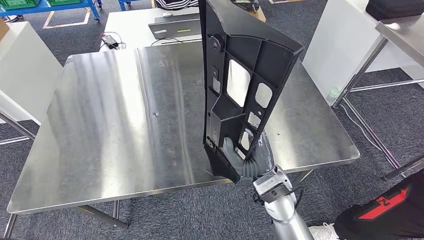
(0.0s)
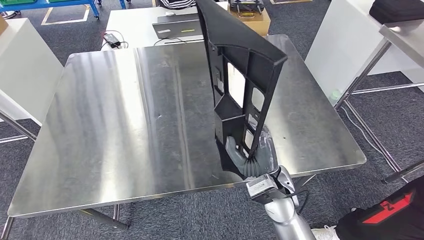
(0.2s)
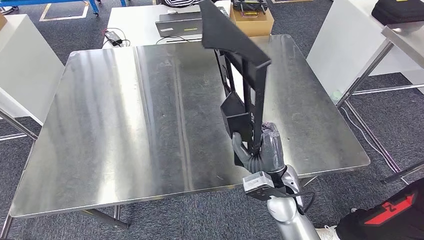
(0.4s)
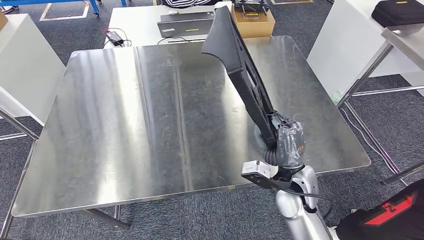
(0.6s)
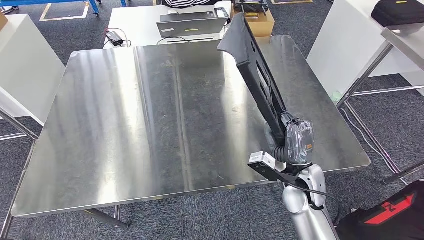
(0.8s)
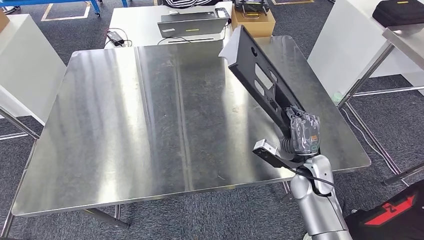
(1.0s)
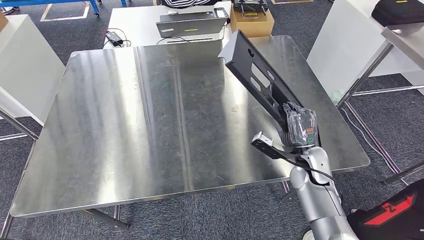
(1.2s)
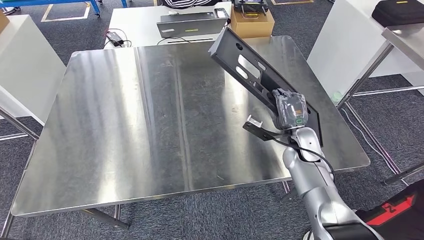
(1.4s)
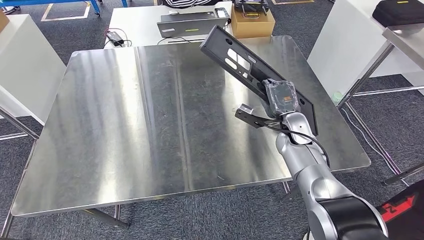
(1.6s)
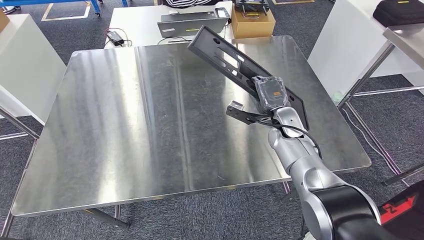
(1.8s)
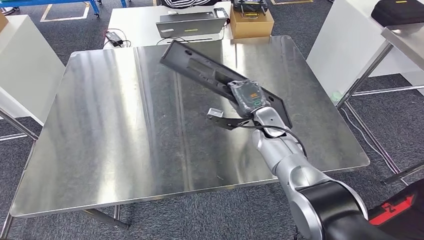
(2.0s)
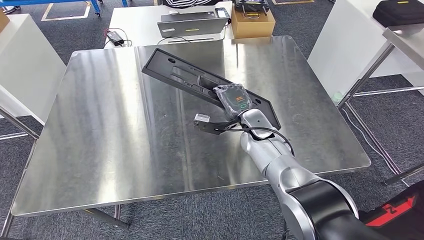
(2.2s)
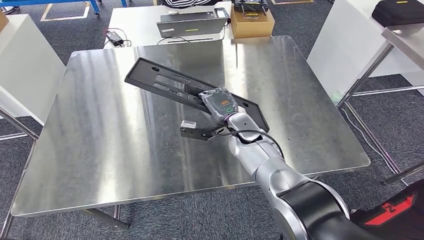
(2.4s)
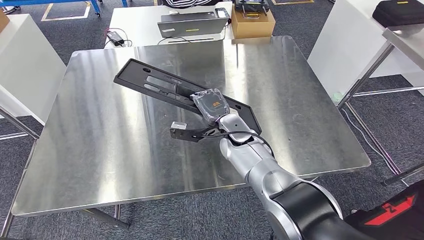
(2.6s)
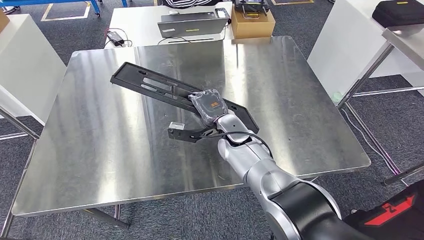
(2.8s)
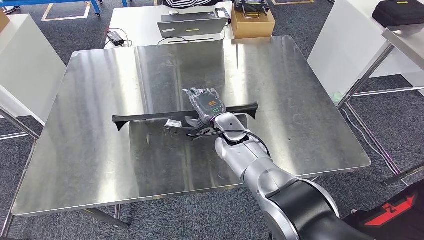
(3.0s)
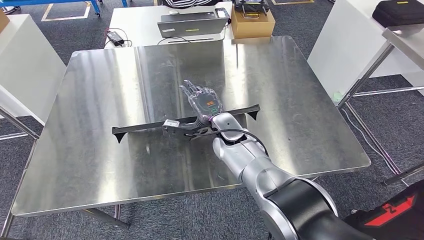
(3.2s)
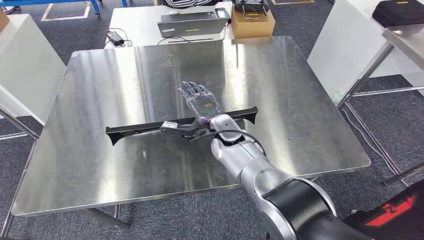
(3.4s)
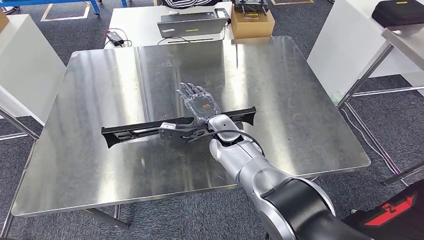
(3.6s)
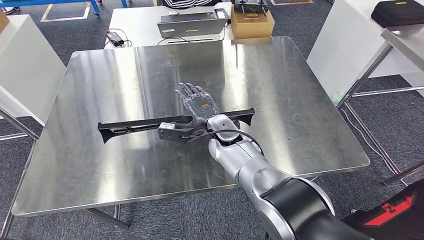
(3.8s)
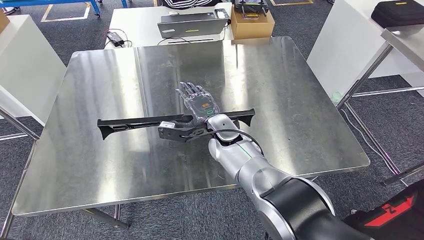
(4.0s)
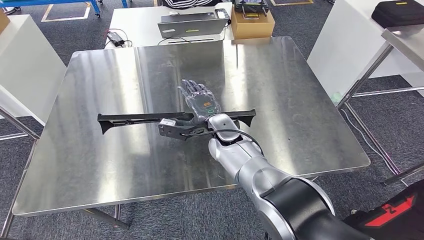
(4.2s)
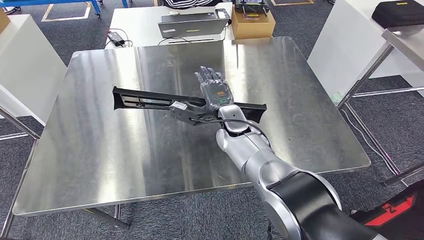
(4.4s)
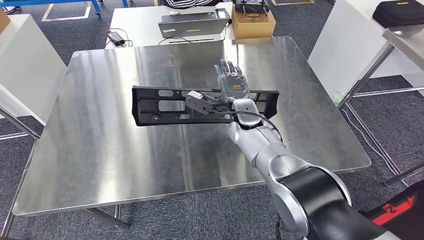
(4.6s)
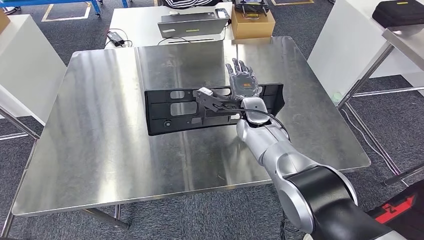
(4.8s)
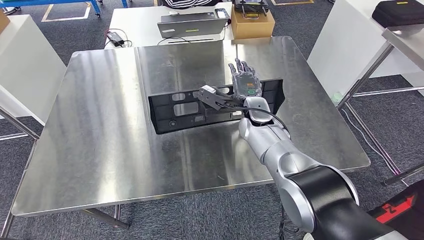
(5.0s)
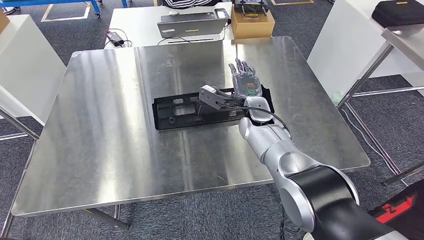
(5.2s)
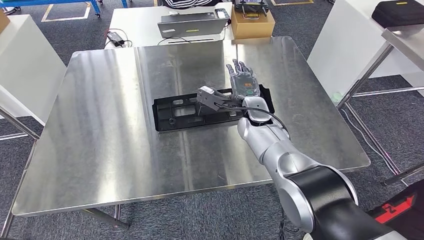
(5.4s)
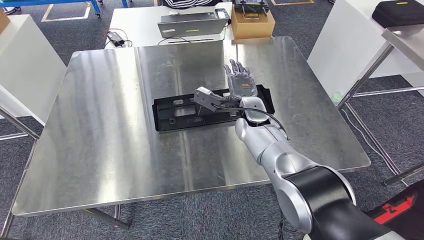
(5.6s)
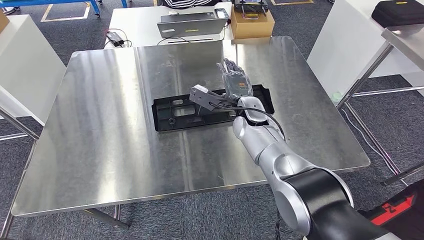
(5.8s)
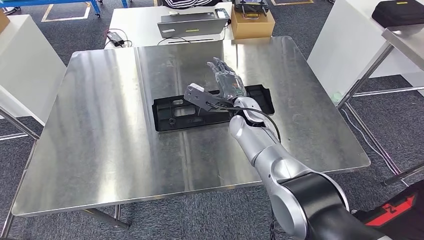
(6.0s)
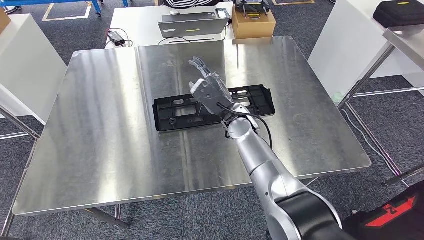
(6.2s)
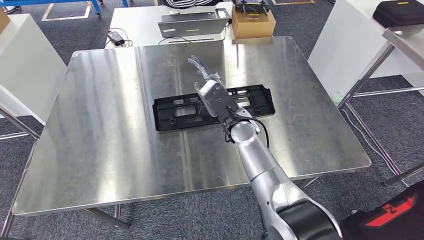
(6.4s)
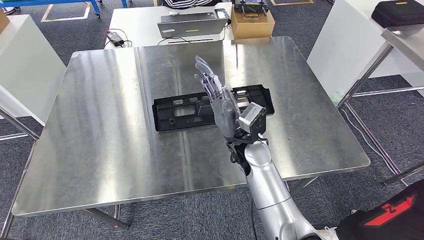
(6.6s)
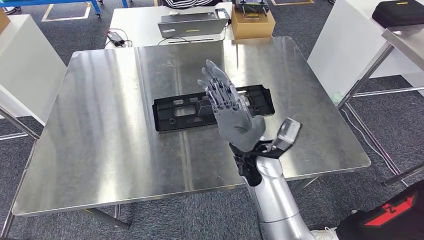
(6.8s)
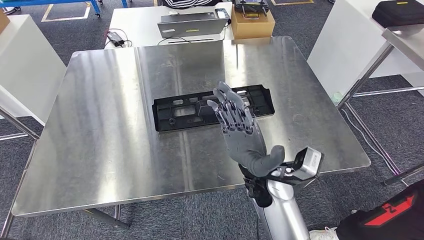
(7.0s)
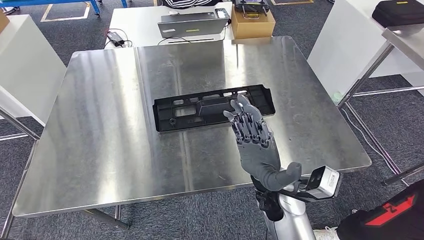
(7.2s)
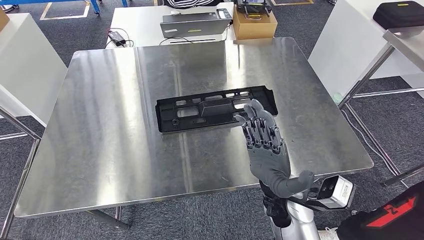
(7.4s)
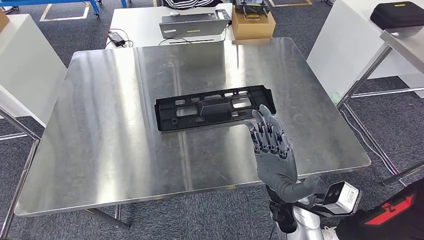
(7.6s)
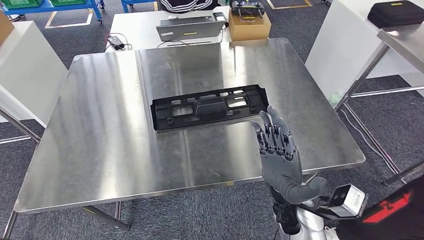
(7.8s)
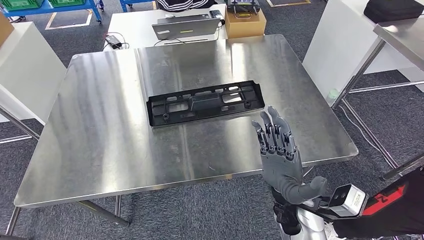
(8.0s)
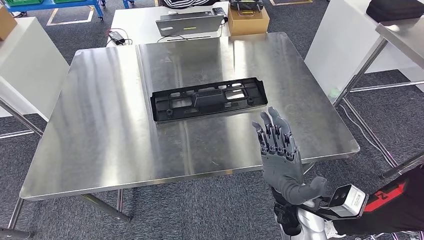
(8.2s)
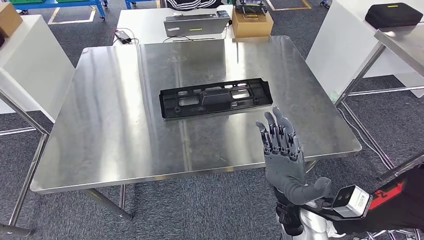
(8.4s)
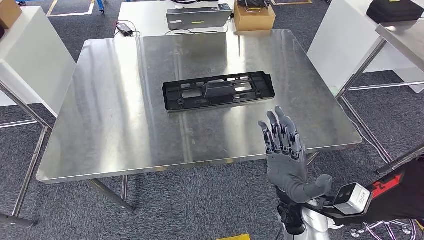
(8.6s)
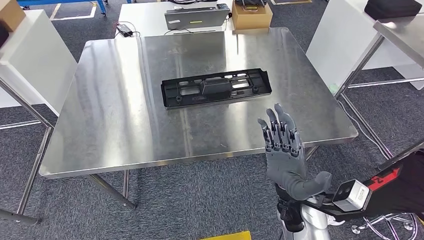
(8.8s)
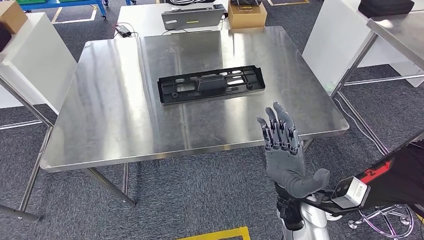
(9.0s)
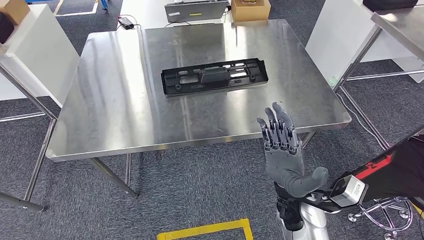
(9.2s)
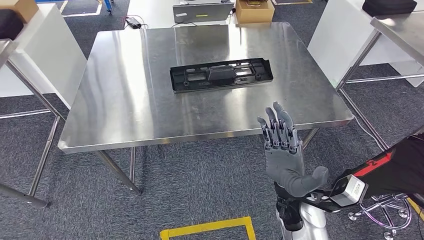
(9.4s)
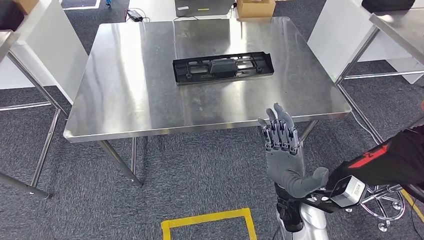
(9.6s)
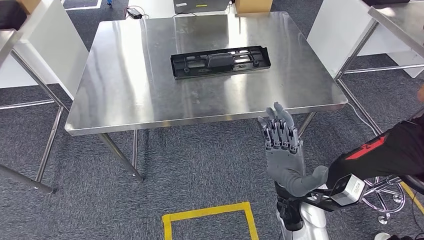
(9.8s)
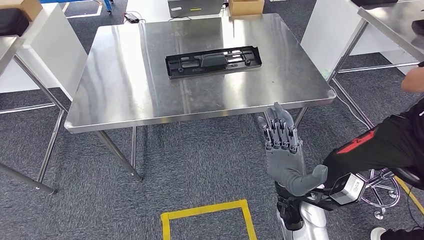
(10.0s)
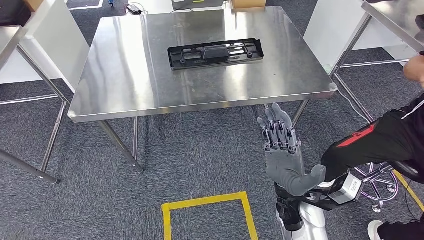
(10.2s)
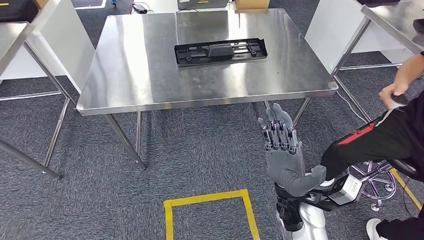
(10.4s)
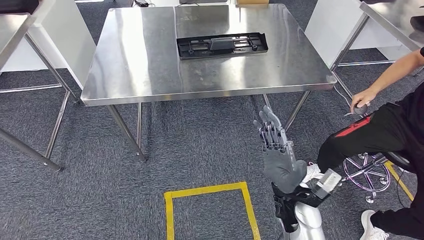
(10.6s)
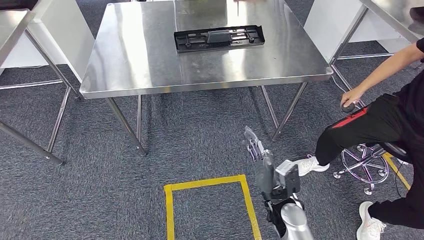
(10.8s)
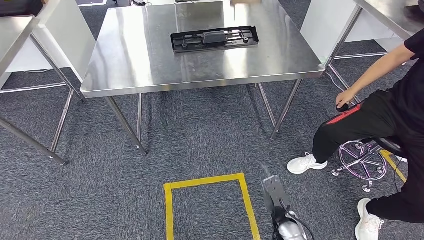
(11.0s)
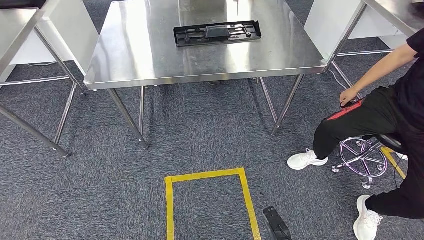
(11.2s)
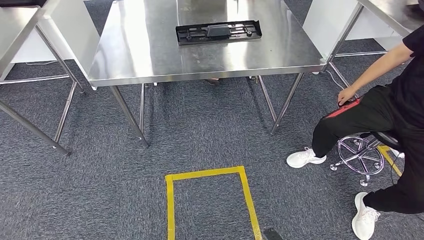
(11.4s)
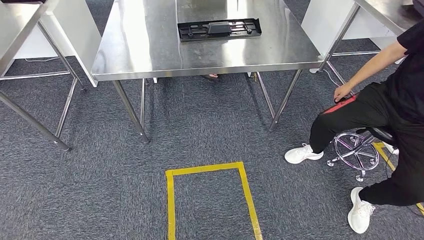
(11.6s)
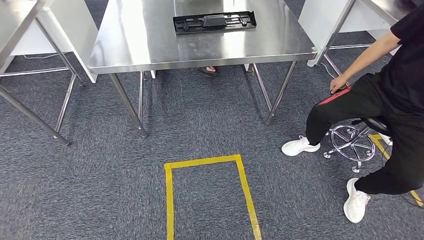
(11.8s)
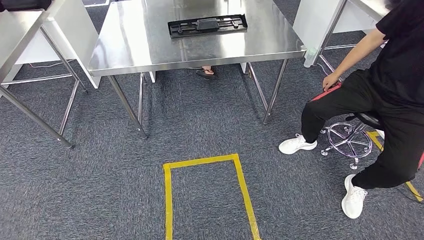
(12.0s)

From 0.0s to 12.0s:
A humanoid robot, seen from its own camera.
Step, from 0.0s to 10.2s: Insert the large material into the corresponding hole on the workbench.
From 1.6s to 3.0s: The right hand heads to the left, covering some 20 cm.
From 3.0s to 4.4s: The hands make only small movements.
From 6.0s to 7.6s: The right hand travels backward by some 20 cm.

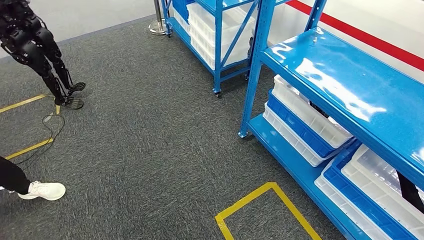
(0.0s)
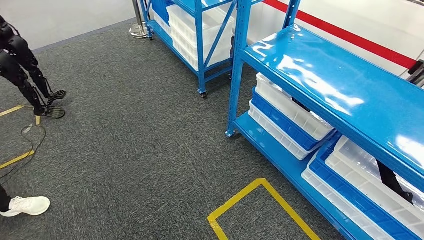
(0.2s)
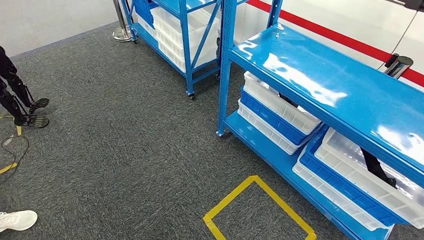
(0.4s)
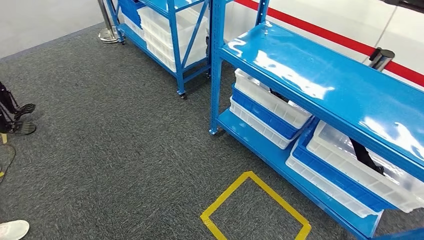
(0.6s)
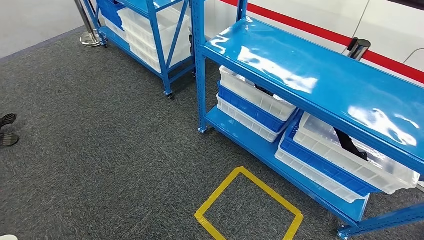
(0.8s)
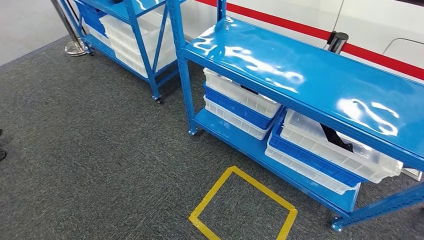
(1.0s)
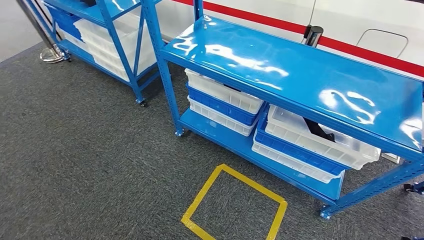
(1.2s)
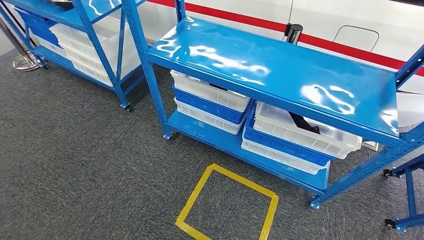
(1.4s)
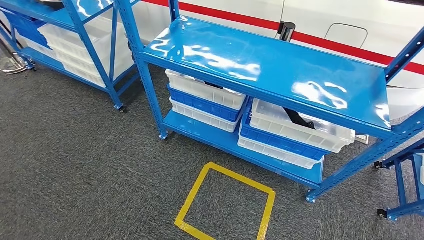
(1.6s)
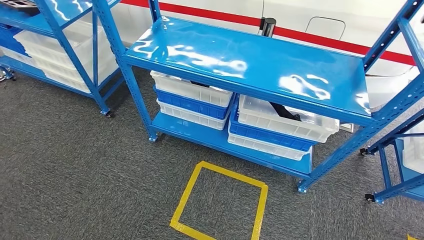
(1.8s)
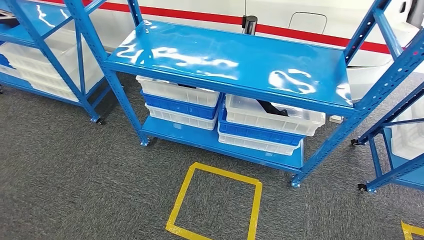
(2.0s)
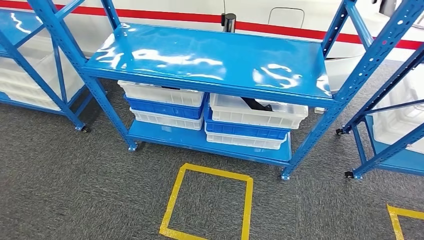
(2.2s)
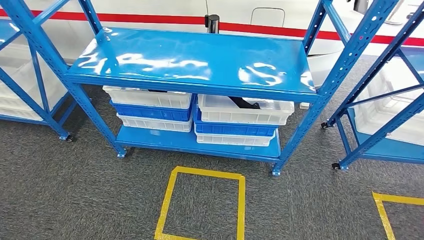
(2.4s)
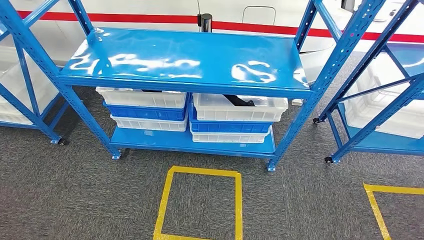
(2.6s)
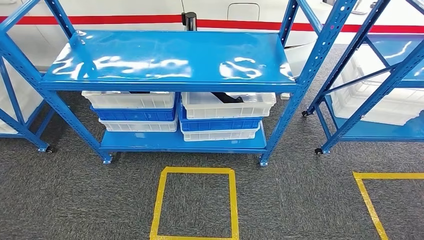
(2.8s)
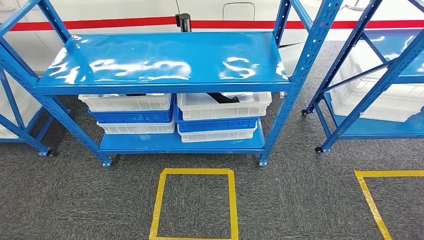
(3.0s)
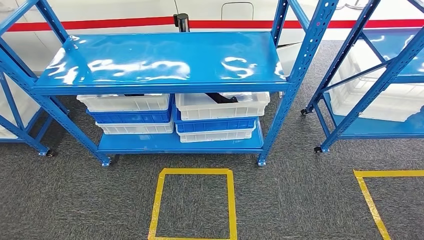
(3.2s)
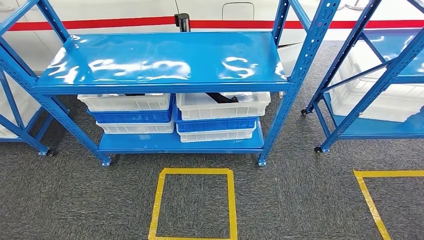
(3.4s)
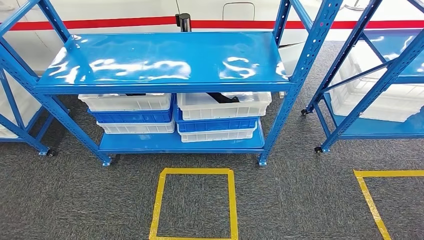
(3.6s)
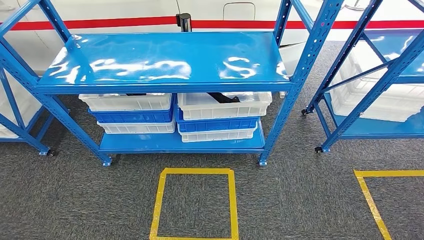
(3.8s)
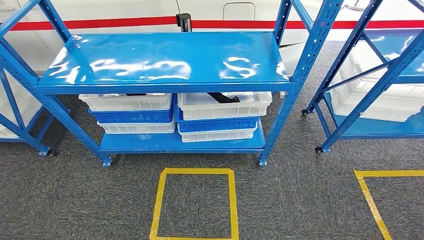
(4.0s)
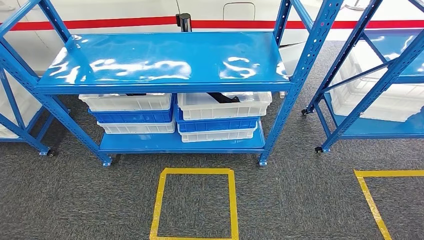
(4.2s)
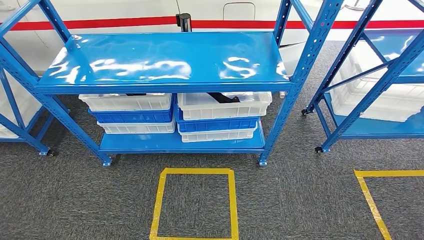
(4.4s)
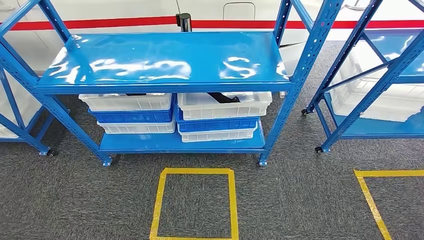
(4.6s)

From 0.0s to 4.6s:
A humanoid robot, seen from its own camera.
Step, from 0.0s to 4.4s: Move to the initial position of the shelf.
From 3.0s to 4.6s: The hands stay close to where they were, moving slightly.
